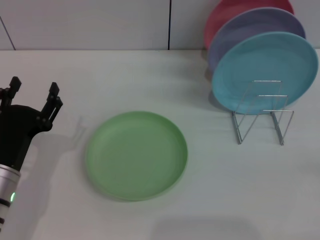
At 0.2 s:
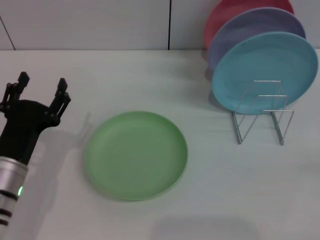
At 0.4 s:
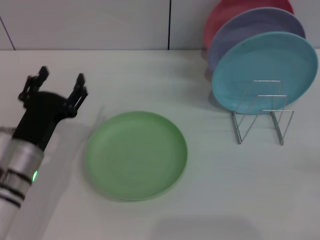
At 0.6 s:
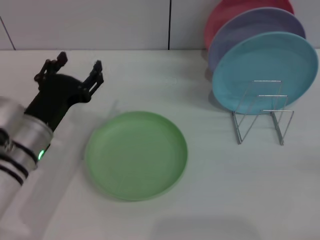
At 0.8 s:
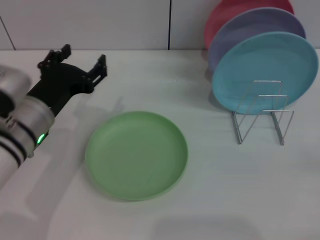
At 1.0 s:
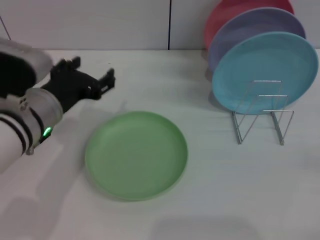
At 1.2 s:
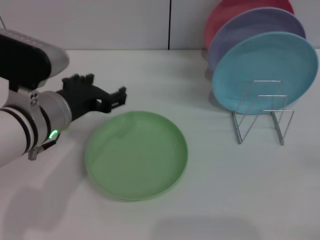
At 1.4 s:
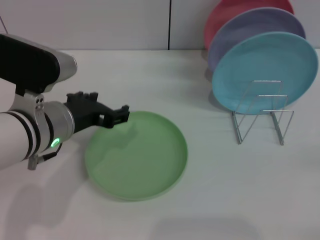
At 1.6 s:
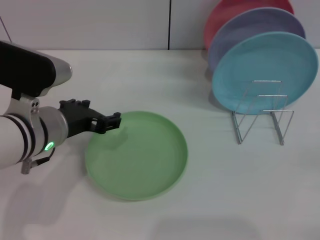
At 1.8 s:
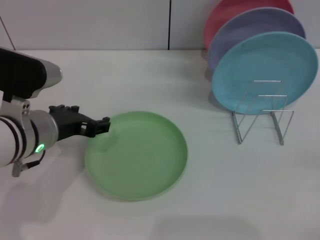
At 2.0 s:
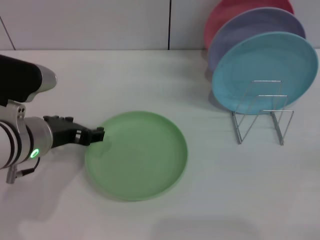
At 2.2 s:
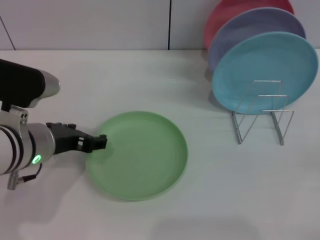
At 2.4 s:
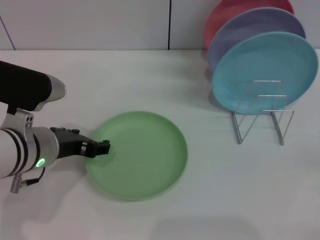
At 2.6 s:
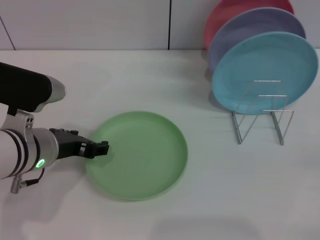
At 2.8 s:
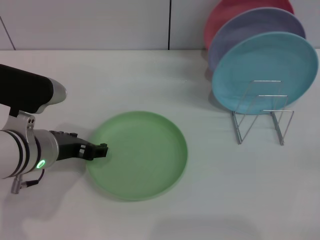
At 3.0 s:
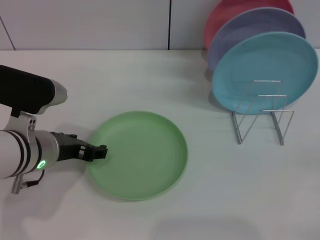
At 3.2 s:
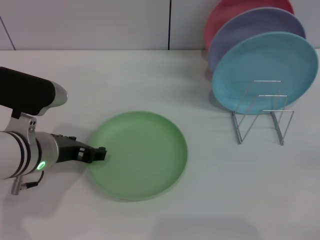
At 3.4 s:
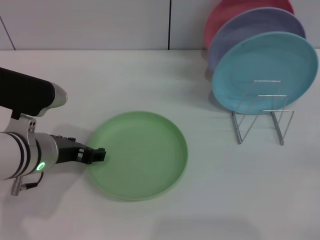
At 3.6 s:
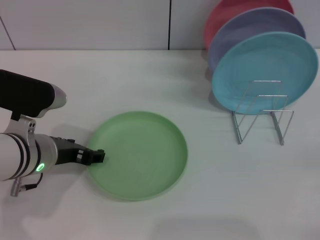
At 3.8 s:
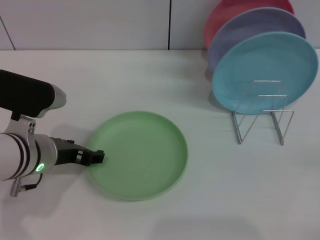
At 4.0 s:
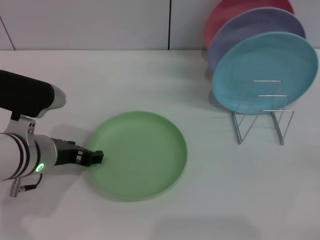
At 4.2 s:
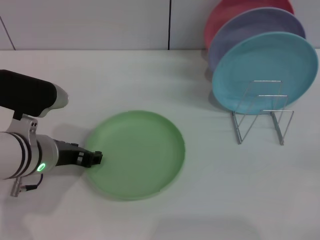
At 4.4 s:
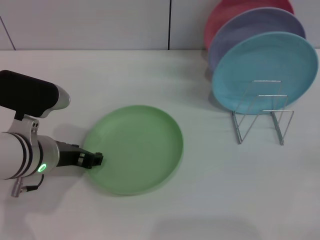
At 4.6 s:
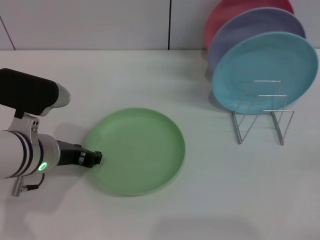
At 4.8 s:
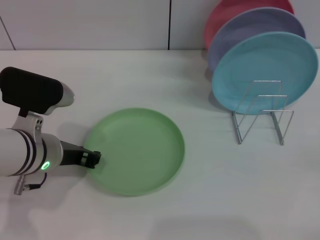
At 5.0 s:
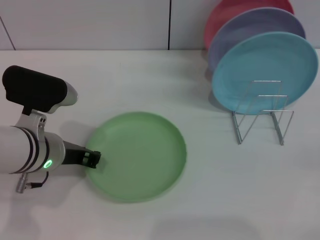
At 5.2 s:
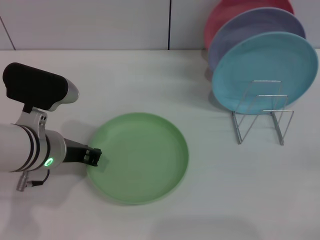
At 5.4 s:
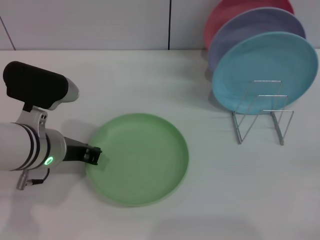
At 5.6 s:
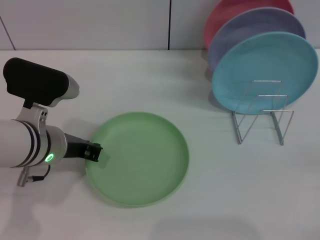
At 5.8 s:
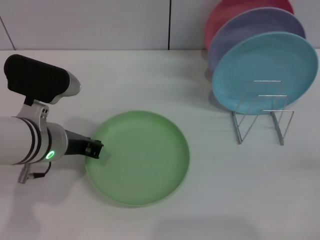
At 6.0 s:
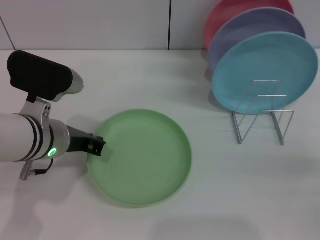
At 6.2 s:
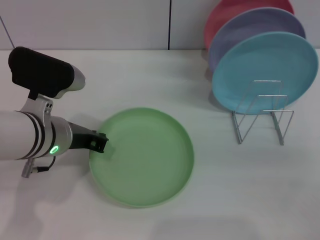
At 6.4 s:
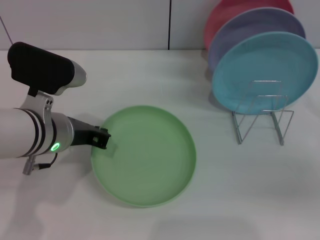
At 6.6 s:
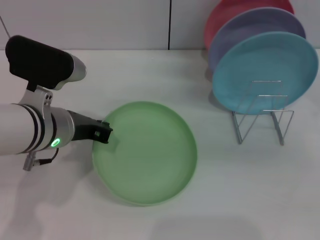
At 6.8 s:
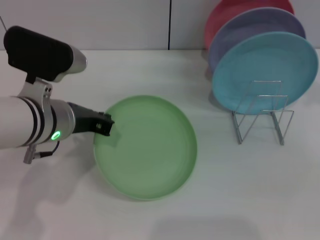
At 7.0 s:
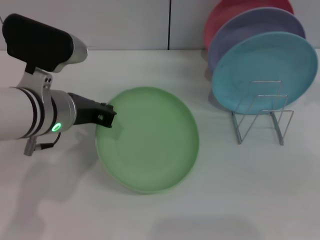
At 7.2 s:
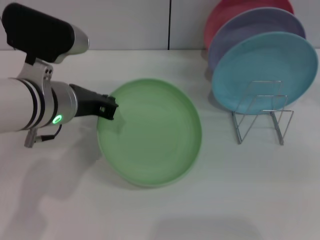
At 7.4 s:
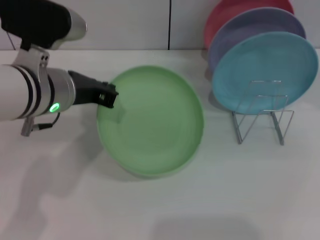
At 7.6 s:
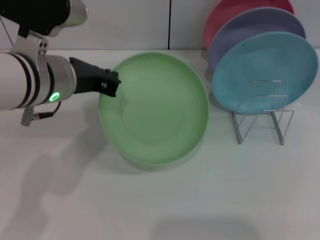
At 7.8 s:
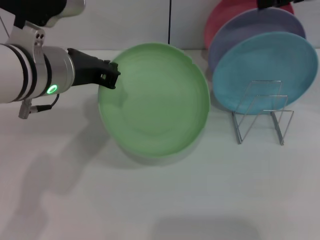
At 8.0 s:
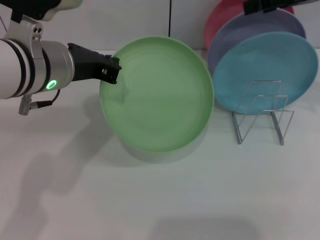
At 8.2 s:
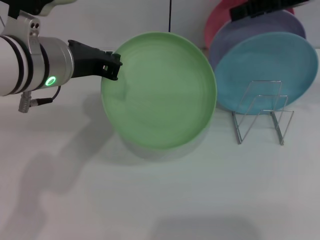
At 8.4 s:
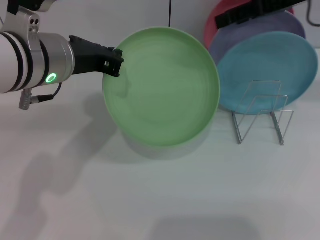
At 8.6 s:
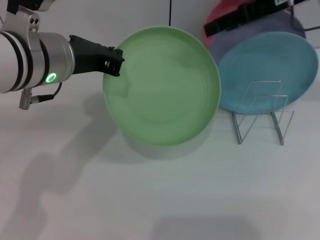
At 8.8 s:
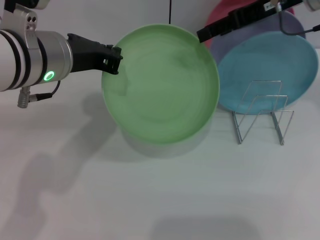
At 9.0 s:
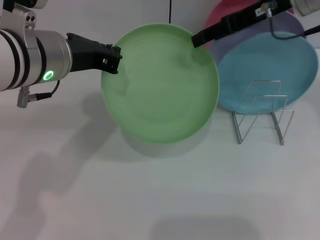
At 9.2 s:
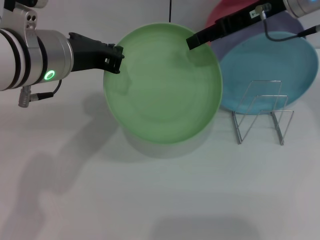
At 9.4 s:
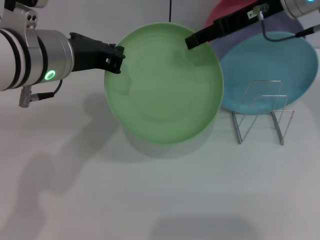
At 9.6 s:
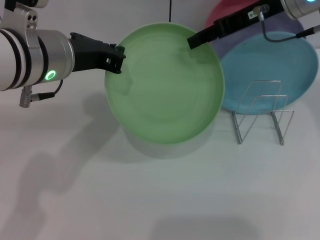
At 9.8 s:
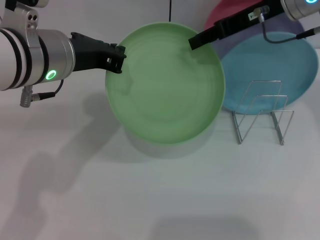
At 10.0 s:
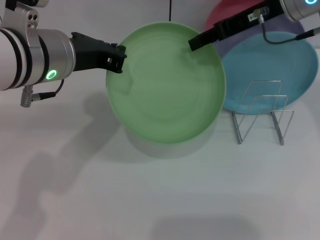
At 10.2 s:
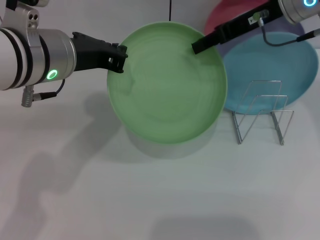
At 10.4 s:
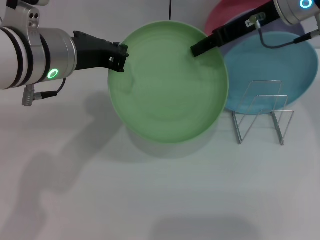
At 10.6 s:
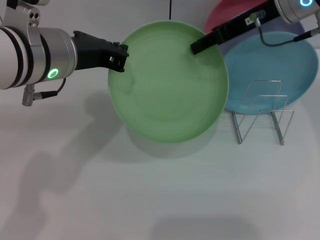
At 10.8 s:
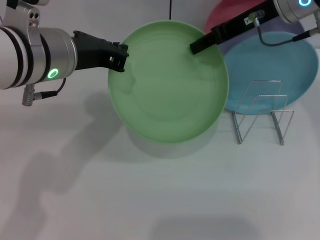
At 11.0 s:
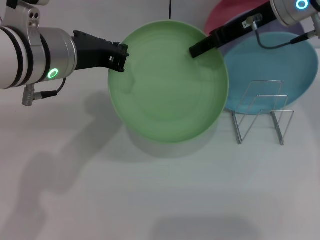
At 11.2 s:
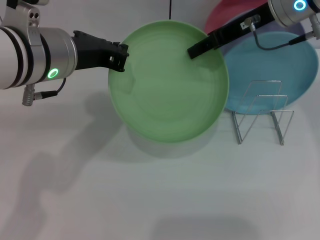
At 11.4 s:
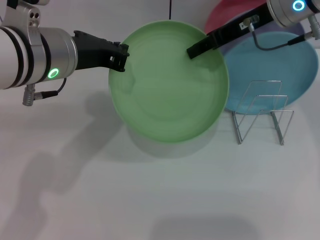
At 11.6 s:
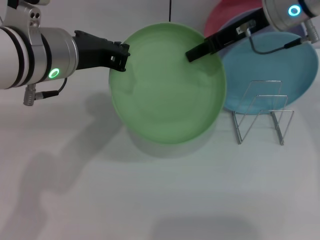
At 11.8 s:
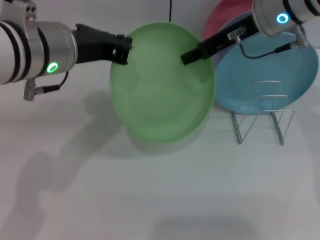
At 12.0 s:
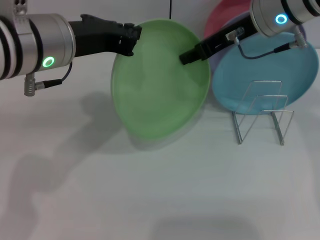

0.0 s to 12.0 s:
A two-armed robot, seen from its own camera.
Task of the whole recording: Grip the plate with one hand, pass it to the other, then set it on the shelf.
Step, 0.0 to 7.6 s: Pick up the plate with the left gripper.
0.0 to 1.6 s: The left gripper travels upward, to the right and forward by approximately 15 cm.
1.6 to 3.0 s: The grippers make only small movements.
3.0 to 4.4 s: Neither gripper changes place.
4.4 to 6.0 s: The left gripper closes up.
6.0 to 7.6 s: The left gripper is displaced upward by some 10 cm, while the right gripper moves upward and forward, about 30 cm.
7.6 to 9.0 s: The right gripper moves to the left, forward and downward, about 15 cm.
9.0 to 10.4 s: The right gripper closes up.
10.4 to 12.0 s: The right gripper closes.

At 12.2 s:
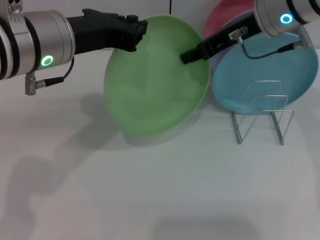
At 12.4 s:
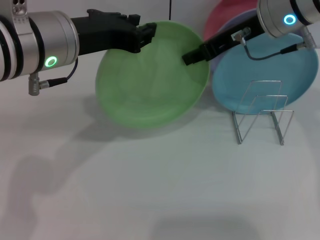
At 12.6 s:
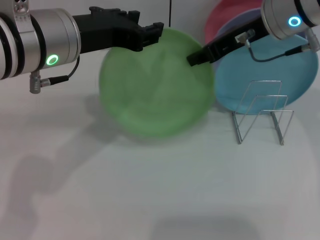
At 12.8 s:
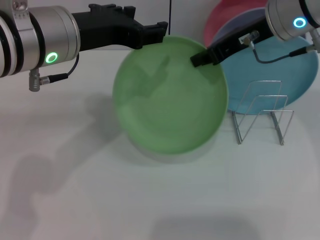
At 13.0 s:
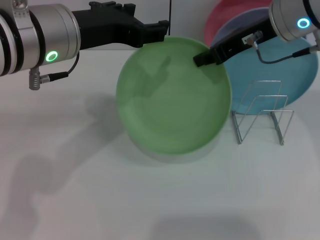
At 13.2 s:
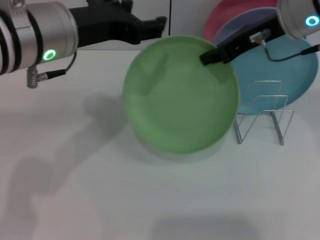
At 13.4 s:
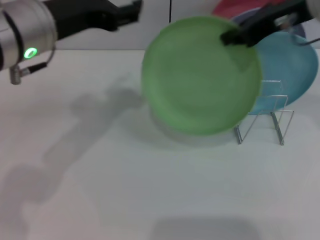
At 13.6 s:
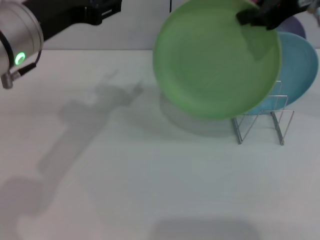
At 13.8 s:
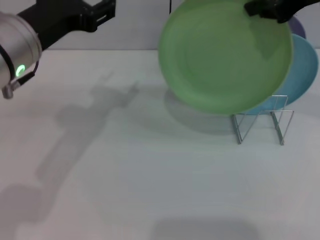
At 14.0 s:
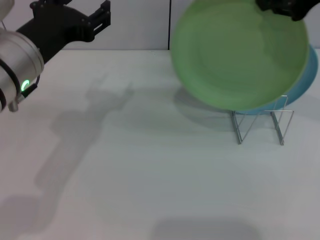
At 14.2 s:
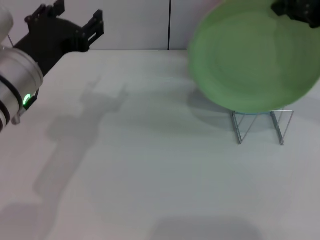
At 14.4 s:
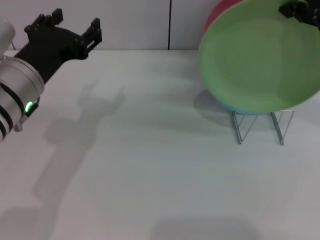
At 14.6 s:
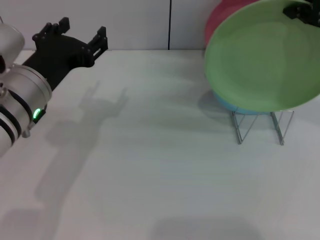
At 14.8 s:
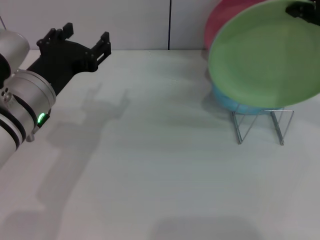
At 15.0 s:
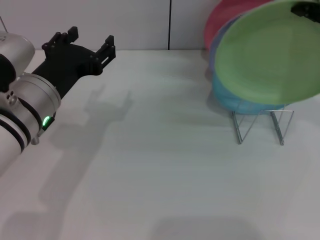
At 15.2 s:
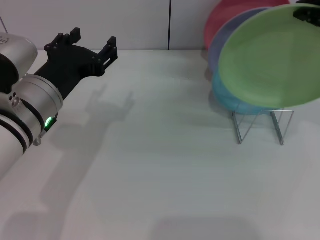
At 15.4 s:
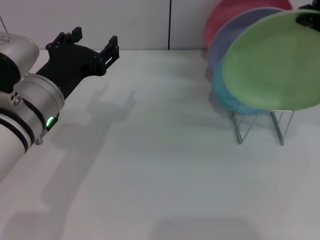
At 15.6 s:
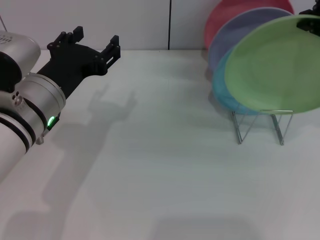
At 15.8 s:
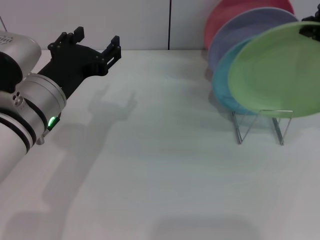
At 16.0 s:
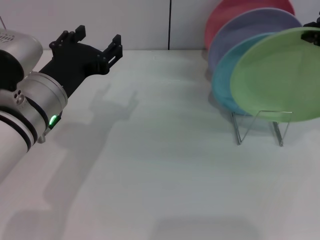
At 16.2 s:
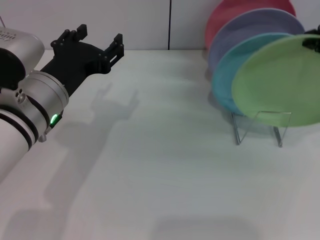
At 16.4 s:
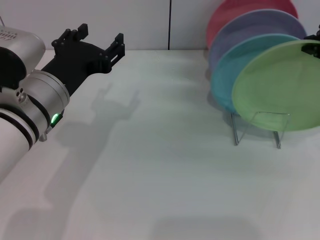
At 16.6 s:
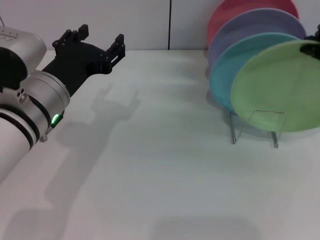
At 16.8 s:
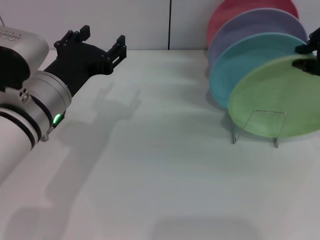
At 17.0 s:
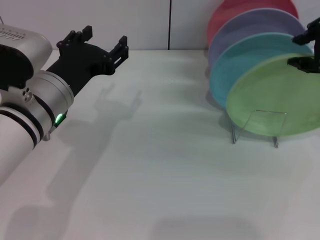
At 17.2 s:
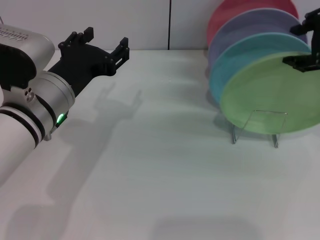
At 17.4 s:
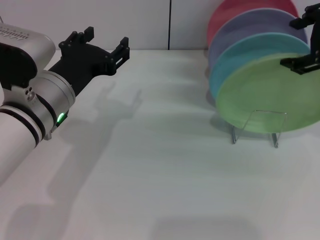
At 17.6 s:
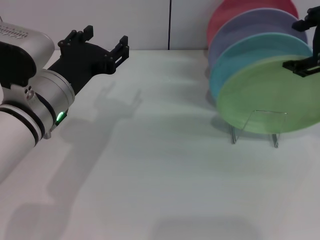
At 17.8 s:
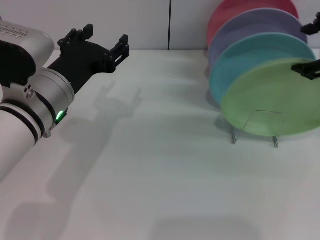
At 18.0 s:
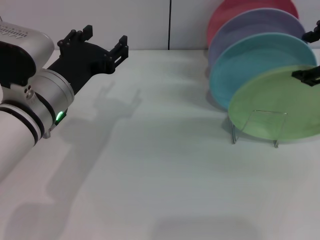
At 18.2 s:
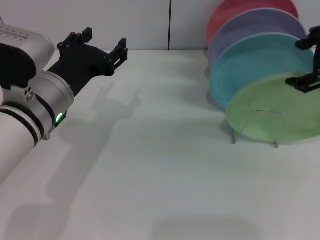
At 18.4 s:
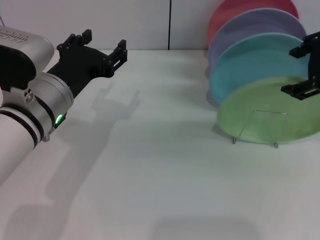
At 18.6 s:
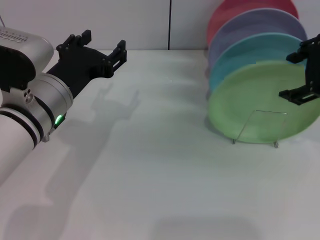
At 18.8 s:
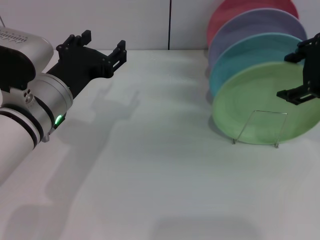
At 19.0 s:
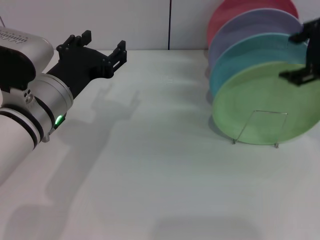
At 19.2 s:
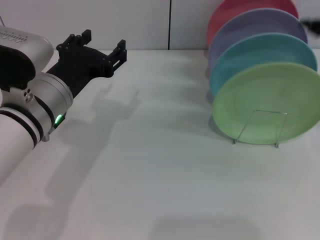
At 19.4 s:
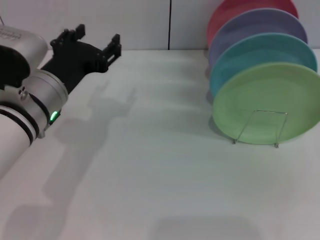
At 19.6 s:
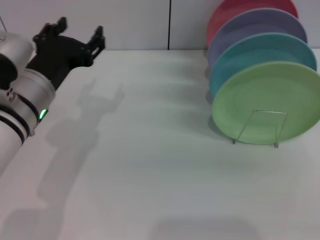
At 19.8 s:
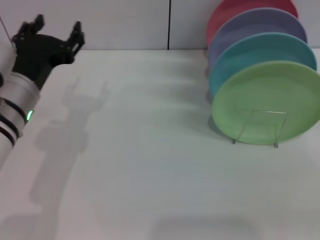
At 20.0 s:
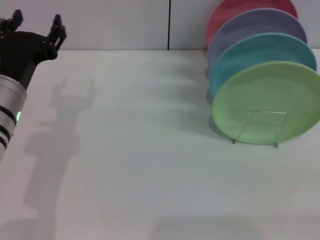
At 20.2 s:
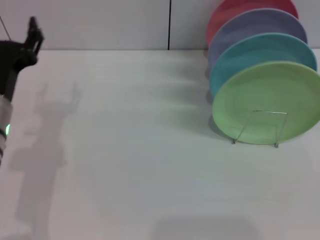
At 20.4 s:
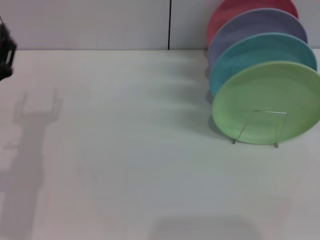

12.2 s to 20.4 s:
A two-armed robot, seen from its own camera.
Task of the whole recording: Grip the plate with one hand, pass it to the other, then set it on the shelf.
Step, 13.4 to 19.0 s: Place the plate on the shelf with the right gripper.
12.2 to 13.8 s: The right gripper is displaced upward, to the right and backward by some 10 cm. Meanwhile the left gripper opens its fingers.
13.8 to 15.4 s: The left gripper is displaced downward by approximately 5 cm.
15.4 to 17.2 s: The right gripper opens.
17.2 to 18.8 s: The right gripper opens.
18.8 to 20.4 s: The right gripper travels backward, to the right and downward by roughly 35 cm; the left gripper moves to the left and downward, roughly 10 cm.
